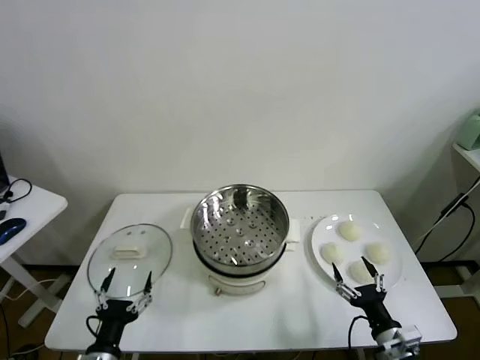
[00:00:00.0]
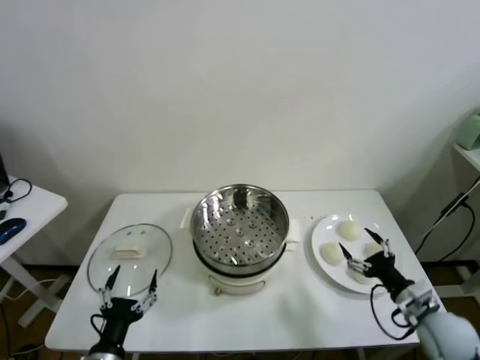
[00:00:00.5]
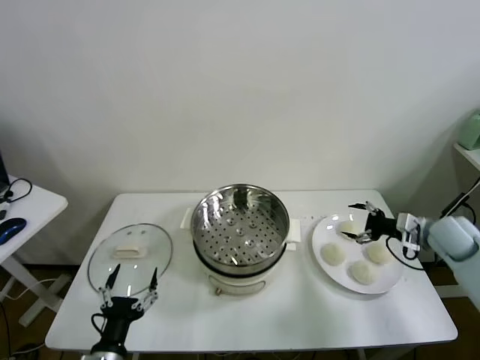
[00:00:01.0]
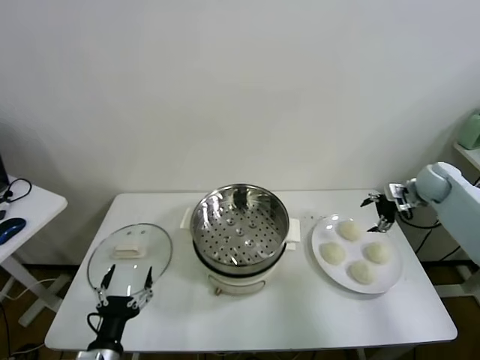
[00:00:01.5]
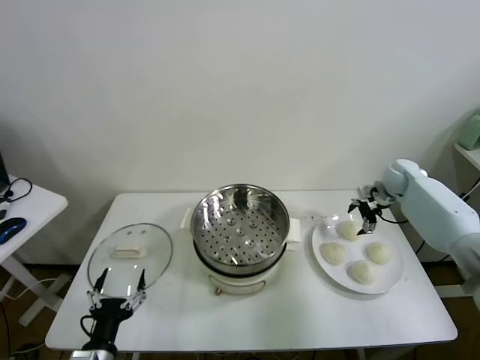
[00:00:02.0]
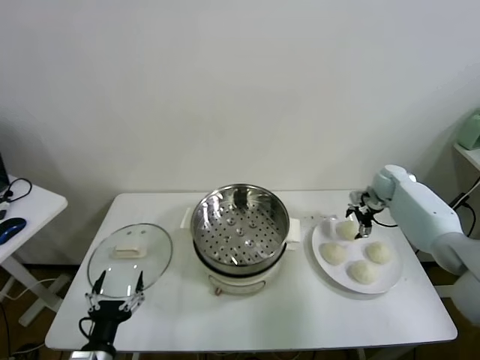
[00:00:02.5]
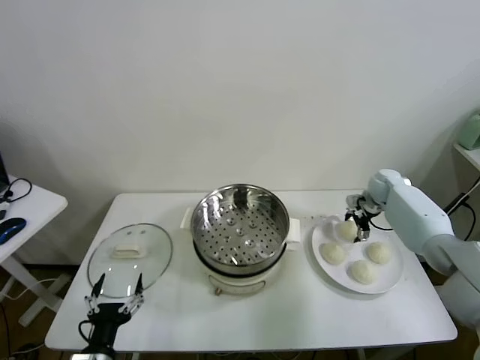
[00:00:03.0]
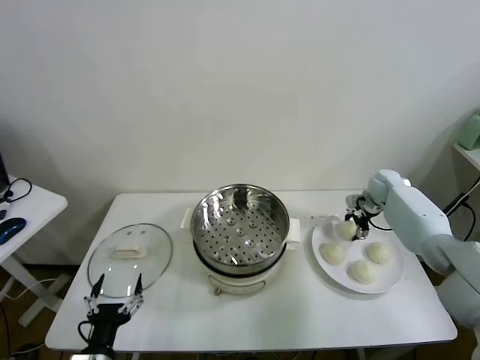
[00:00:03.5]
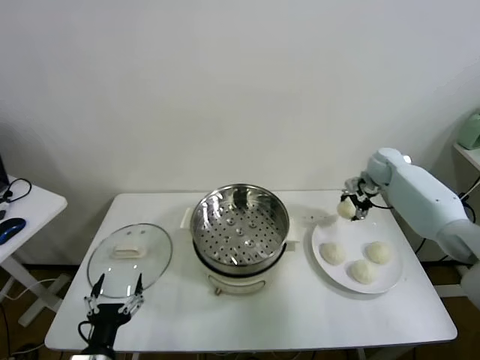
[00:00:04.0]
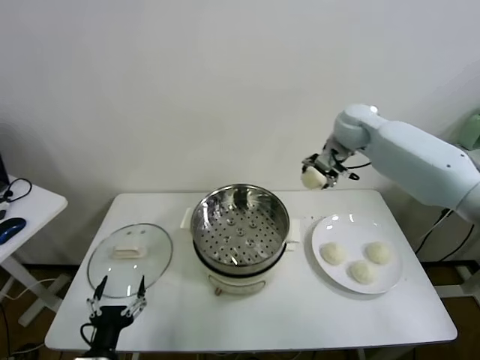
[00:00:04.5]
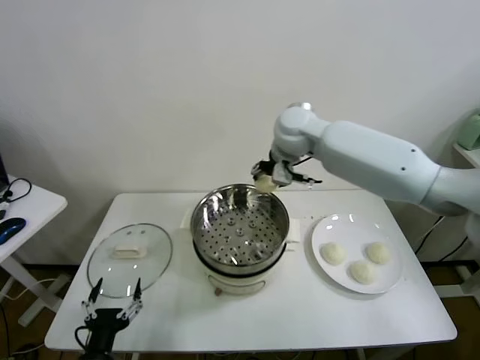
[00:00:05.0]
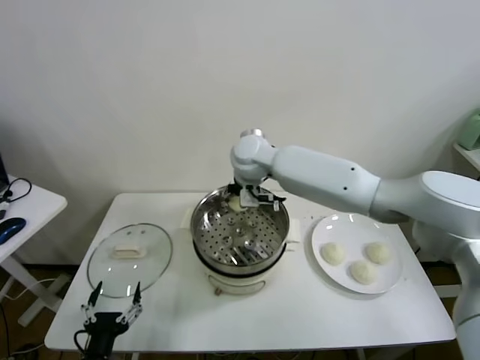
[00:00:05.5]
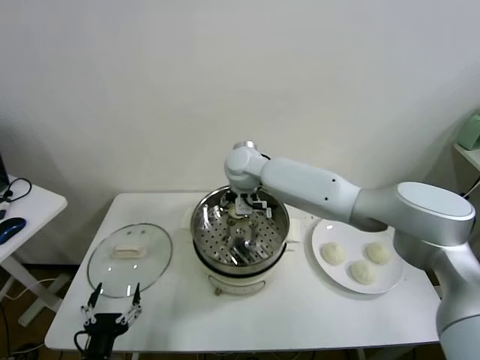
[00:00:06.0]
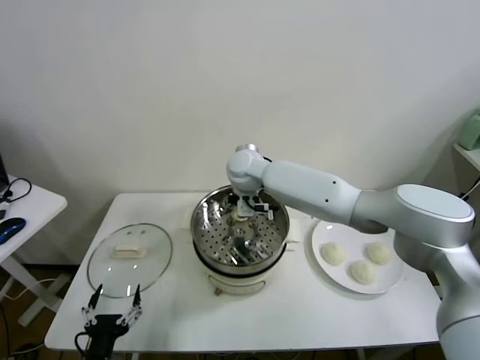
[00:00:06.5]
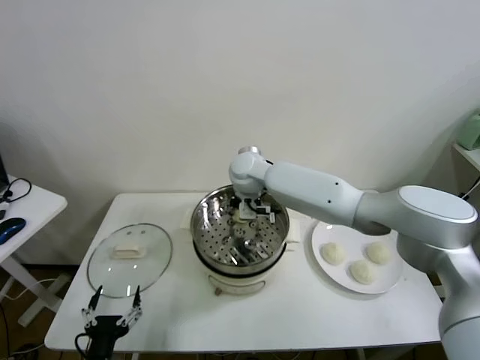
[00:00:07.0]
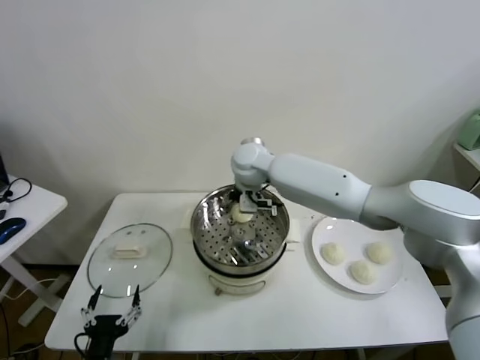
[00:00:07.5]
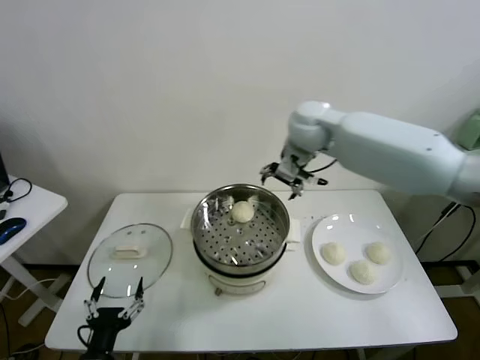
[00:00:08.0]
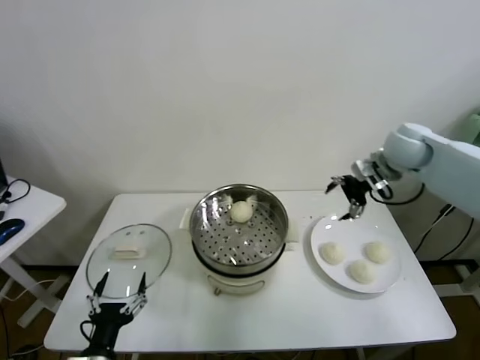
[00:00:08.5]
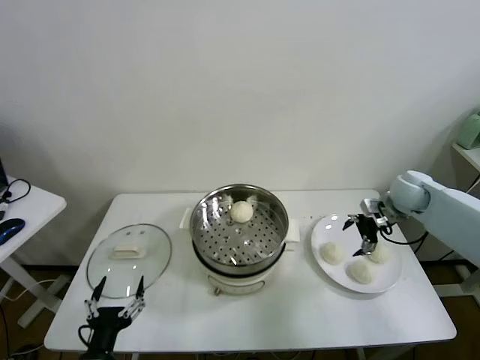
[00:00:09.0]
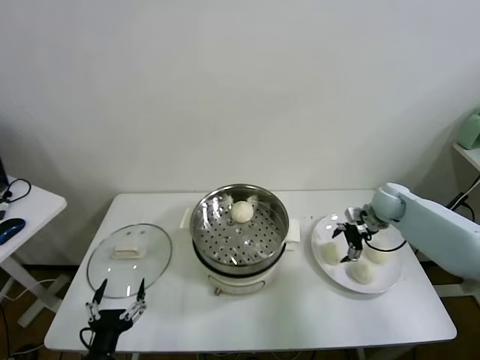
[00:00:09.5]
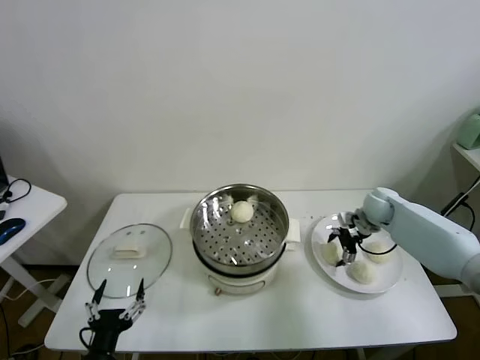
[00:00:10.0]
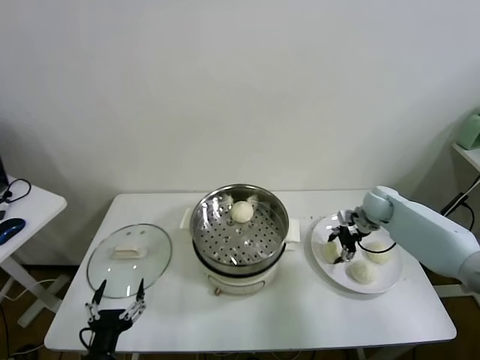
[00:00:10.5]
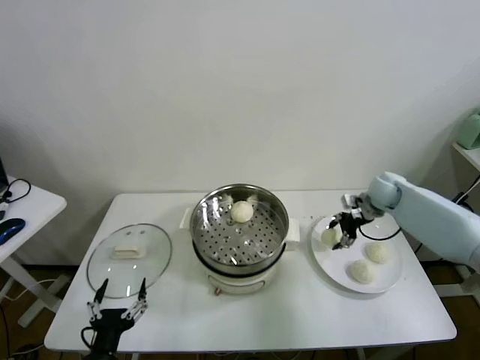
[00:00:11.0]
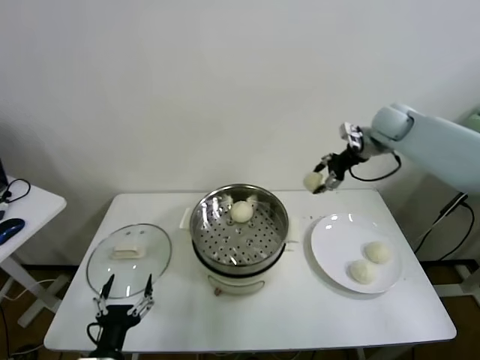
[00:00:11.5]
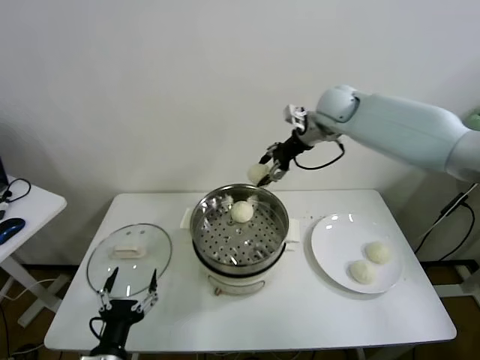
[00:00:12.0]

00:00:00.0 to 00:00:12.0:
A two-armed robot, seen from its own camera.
Task of the whole recording: take steamed baozi put them in steamer.
Step, 00:00:00.0 to 00:00:03.0: Grasp the baozi in the plate with right gripper.
Step, 00:00:03.5 to 00:00:07.0: Place the baozi on the steamer with right gripper.
Step, 00:00:07.5 to 00:00:10.5: Grasp the baozi in the plate with right gripper.
00:00:02.0 to 00:00:04.0: The right gripper goes some 10 cm upward and to the left, and closes its fingers.
00:00:04.0 to 00:00:06.0: The right gripper heads to the left, covering approximately 35 cm.
00:00:06.0 to 00:00:08.0: The right gripper travels to the right and upward by approximately 20 cm, and opens its fingers.
00:00:08.0 to 00:00:10.0: The right gripper shifts roughly 30 cm downward and to the right.
00:00:10.0 to 00:00:12.0: The right gripper goes roughly 30 cm upward and to the left, and closes up.

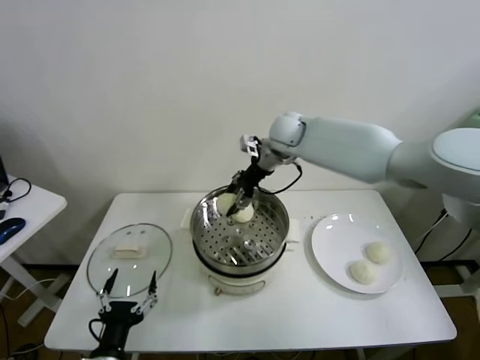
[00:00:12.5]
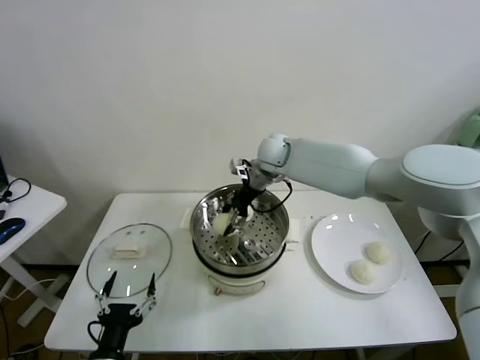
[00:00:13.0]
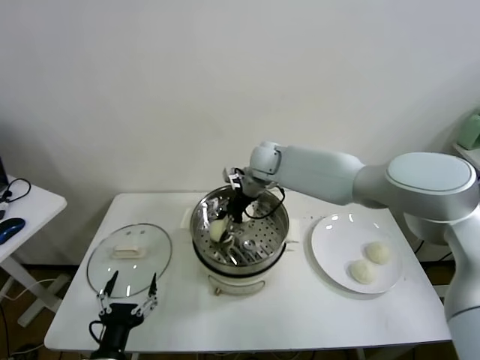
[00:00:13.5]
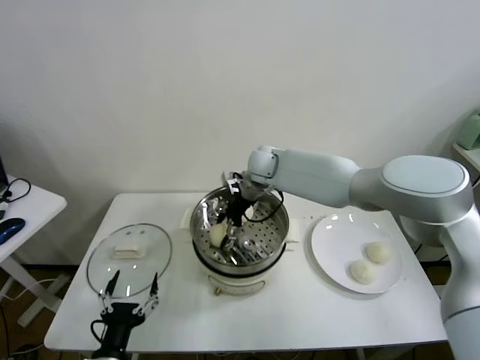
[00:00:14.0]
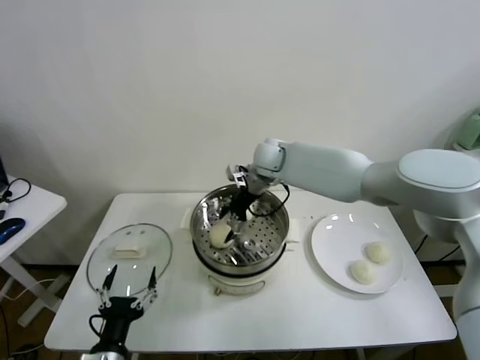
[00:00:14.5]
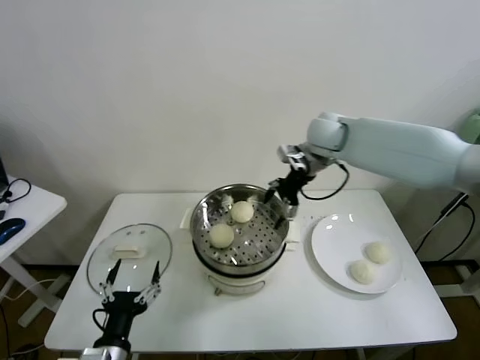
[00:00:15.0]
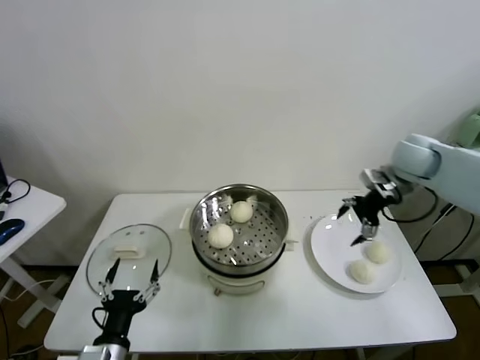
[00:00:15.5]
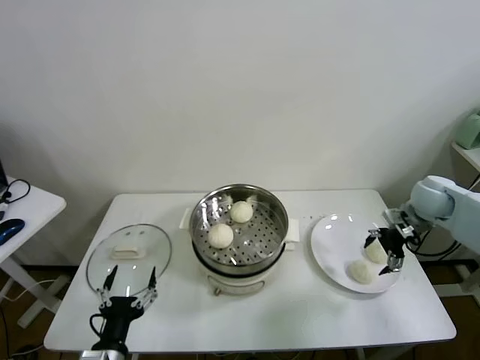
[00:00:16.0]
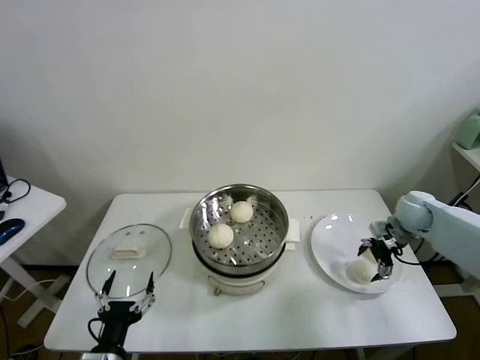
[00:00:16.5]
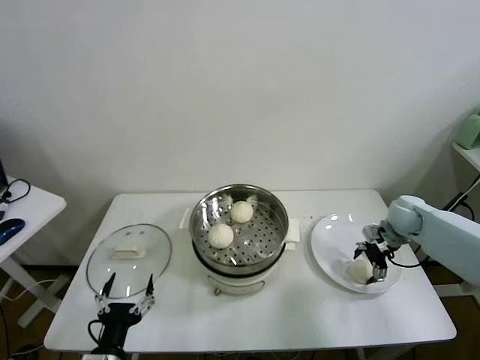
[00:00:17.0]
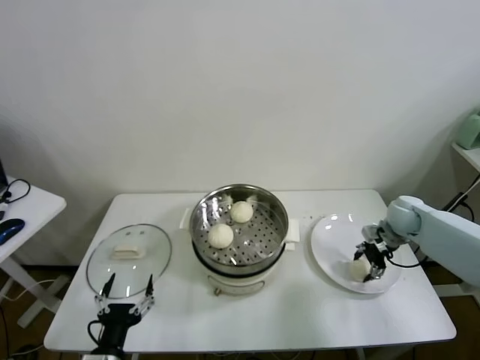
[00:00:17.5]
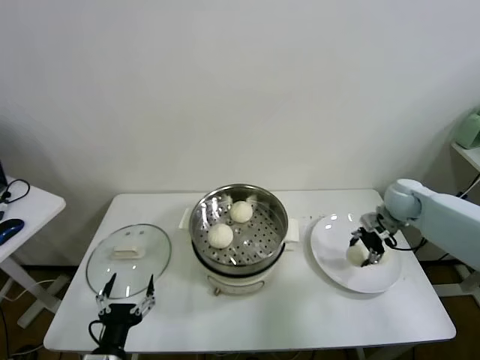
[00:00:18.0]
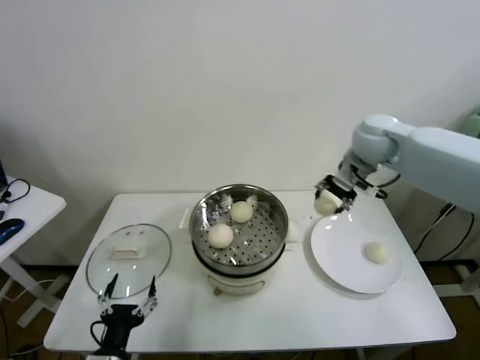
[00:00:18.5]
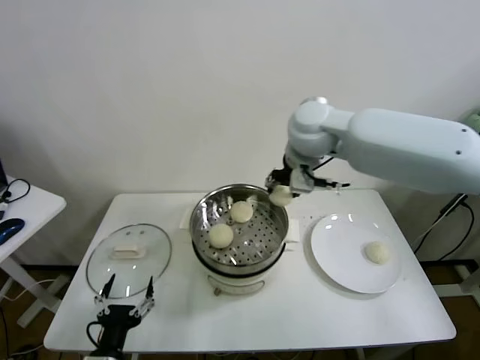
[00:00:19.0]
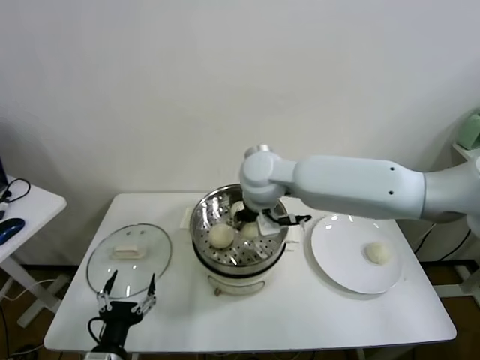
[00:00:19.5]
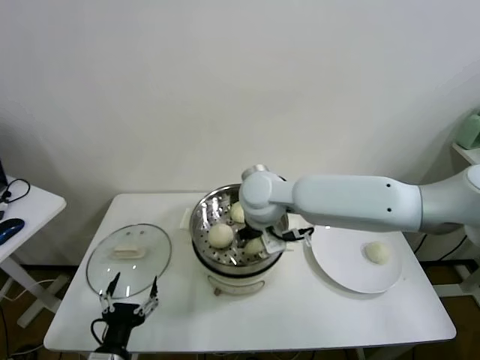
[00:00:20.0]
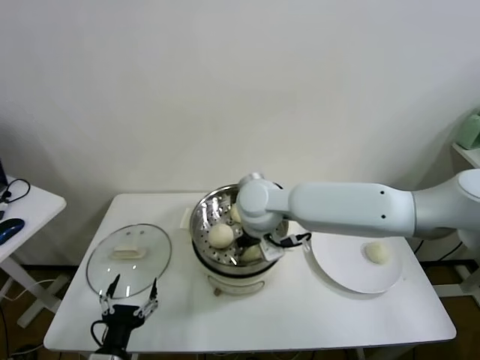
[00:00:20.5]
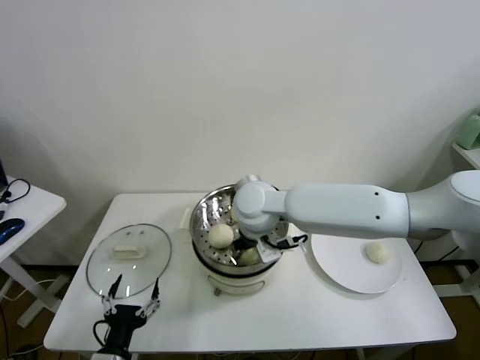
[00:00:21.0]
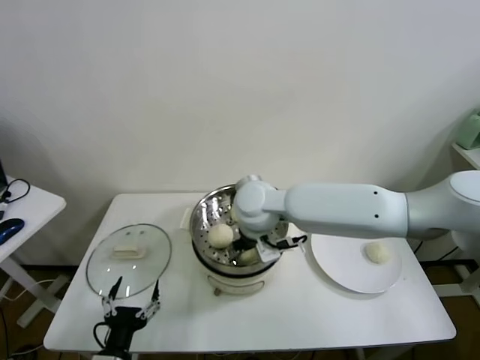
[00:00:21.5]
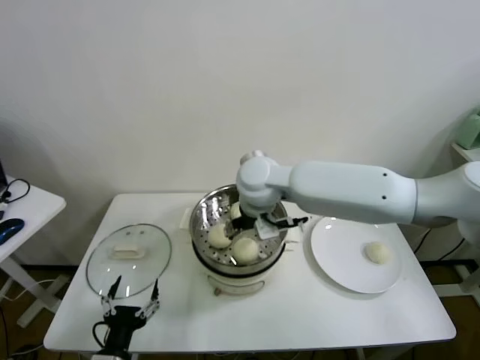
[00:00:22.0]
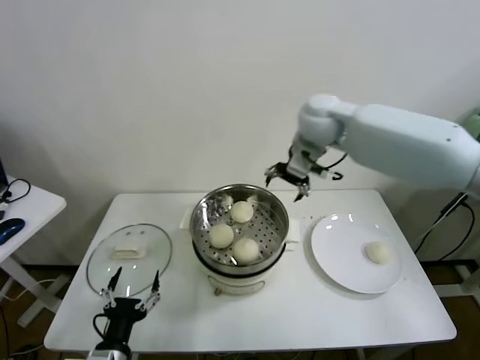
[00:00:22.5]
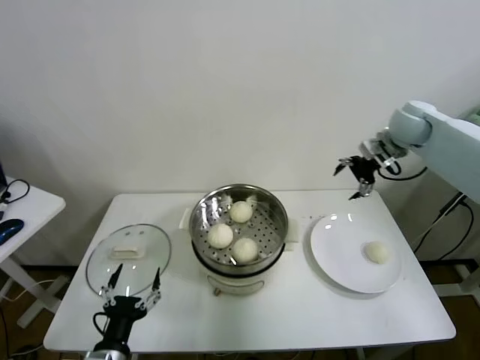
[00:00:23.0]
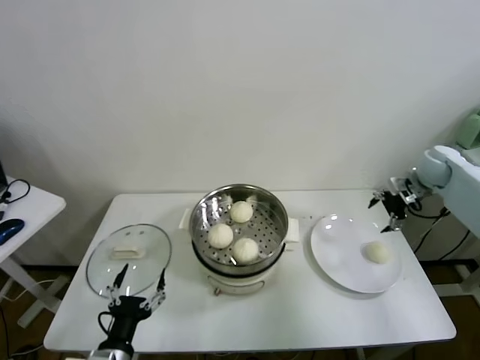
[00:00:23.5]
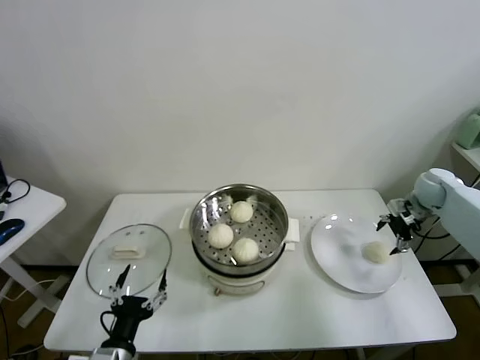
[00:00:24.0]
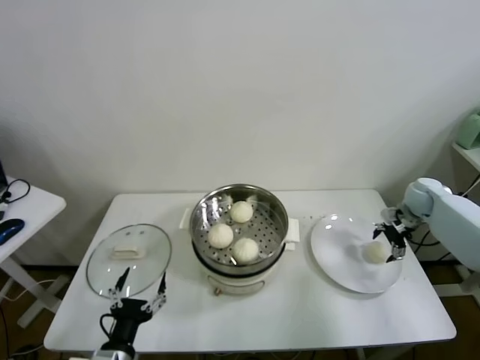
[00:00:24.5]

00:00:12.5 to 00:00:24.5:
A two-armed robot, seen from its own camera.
Task of the whole recording: take steamed baozi put them in steamer.
Step, 00:00:14.5 to 00:00:17.0: Grasp the baozi in the plate with right gripper.
Step, 00:00:17.5 to 00:00:21.0: Place the baozi on the steamer with right gripper.
00:00:12.5 to 00:00:14.5: The right gripper shifts roughly 5 cm downward, and opens up.
00:00:14.5 to 00:00:16.5: The right gripper goes about 35 cm to the right.
00:00:16.5 to 00:00:18.5: The right gripper goes roughly 25 cm upward and to the left, and closes up.
00:00:18.5 to 00:00:20.5: The right gripper moves to the left and backward, approximately 25 cm.
00:00:20.5 to 00:00:22.5: The right gripper travels to the right, upward and forward by approximately 20 cm, and opens.
00:00:22.5 to 00:00:24.5: The right gripper is displaced to the right and downward by about 40 cm.

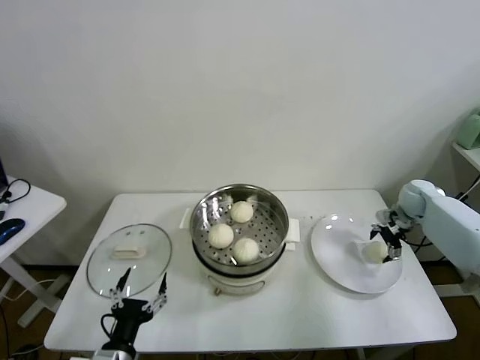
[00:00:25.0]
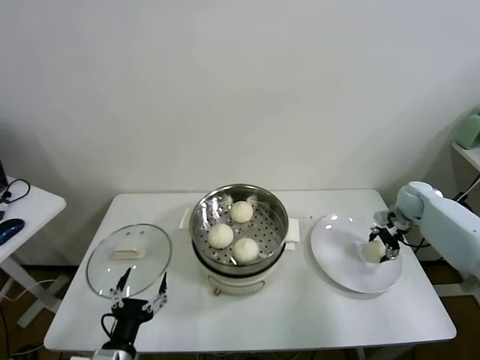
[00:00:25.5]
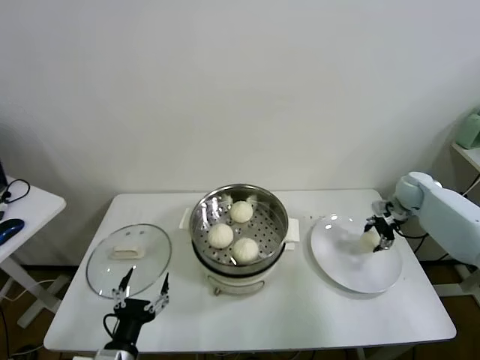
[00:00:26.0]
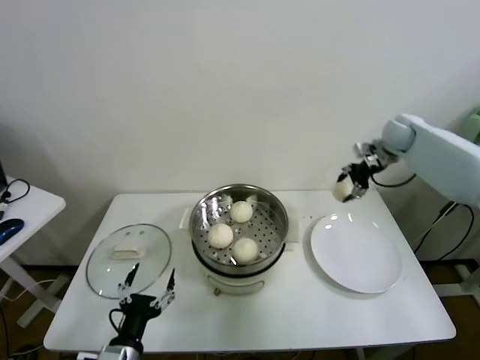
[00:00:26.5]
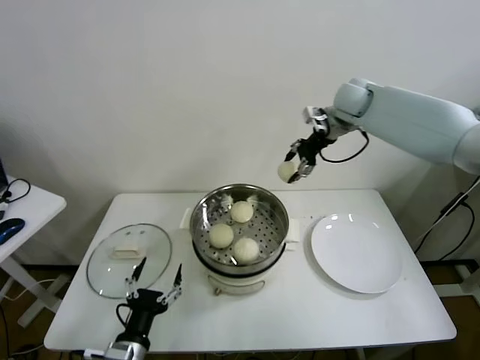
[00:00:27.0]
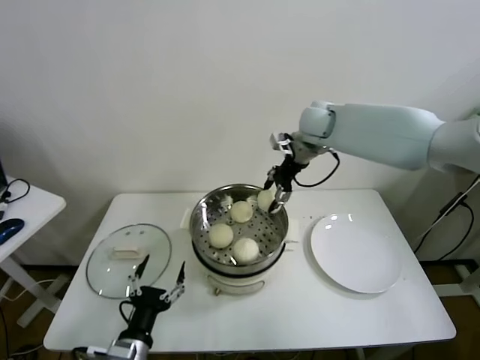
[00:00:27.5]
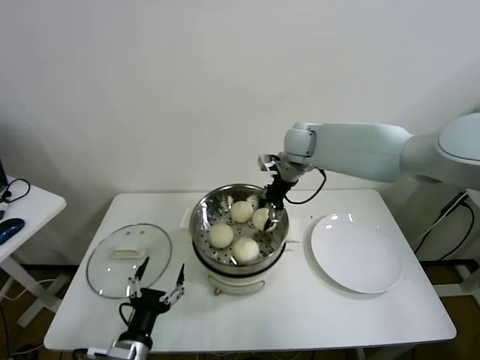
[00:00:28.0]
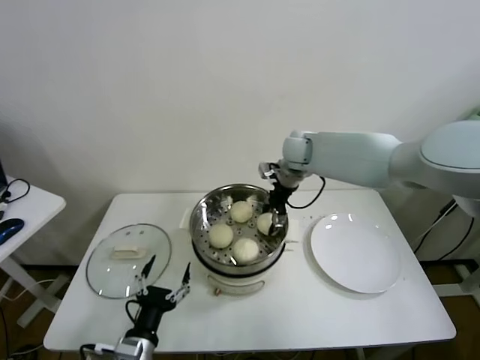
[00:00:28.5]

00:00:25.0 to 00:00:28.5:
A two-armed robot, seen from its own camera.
Task of the whole recording: take steamed baozi put them in steamer.
00:00:25.0 to 00:00:27.0: The right gripper goes about 35 cm upward and to the left, and closes its fingers.
00:00:27.0 to 00:00:28.5: The right gripper heads to the left and downward, covering some 15 cm.
